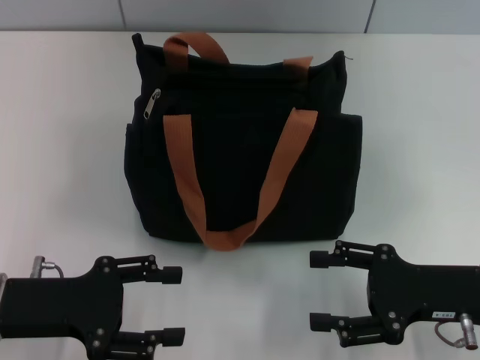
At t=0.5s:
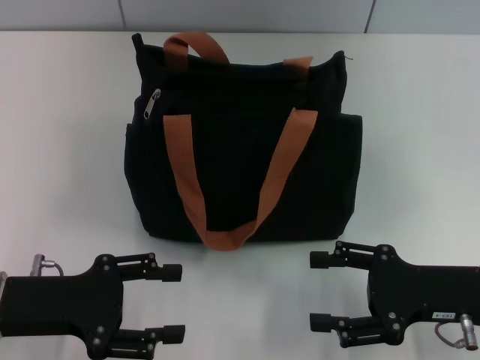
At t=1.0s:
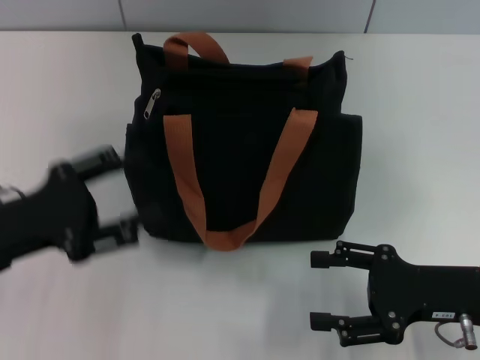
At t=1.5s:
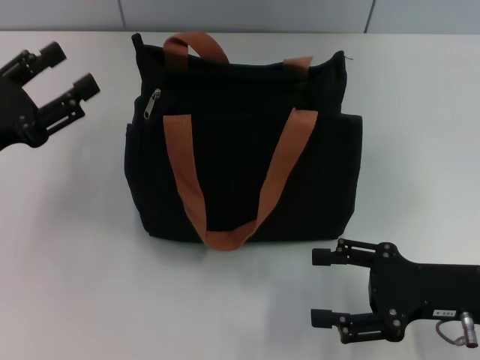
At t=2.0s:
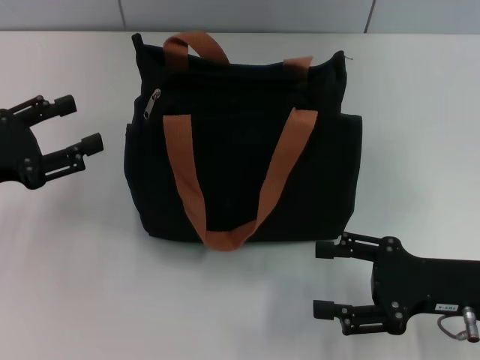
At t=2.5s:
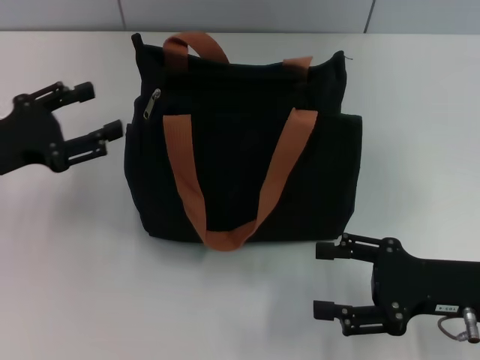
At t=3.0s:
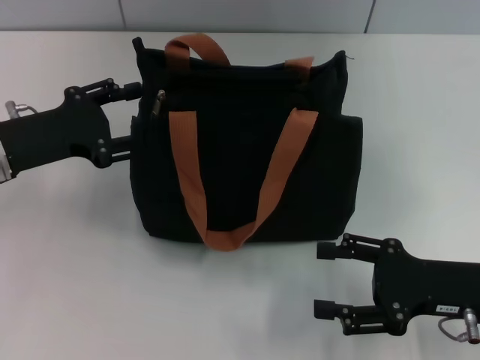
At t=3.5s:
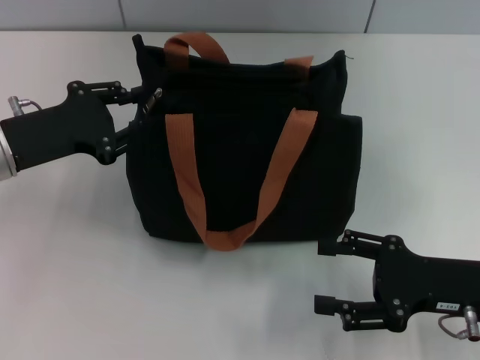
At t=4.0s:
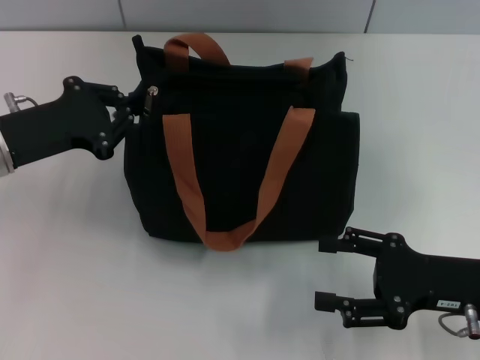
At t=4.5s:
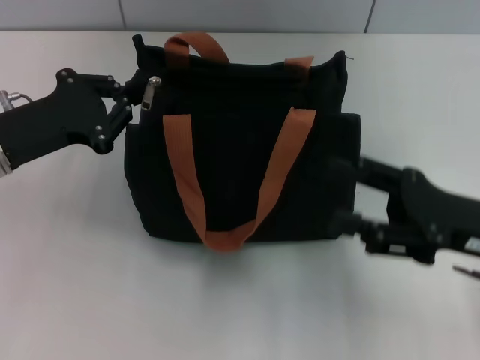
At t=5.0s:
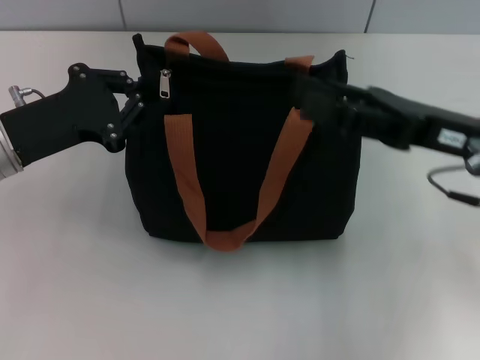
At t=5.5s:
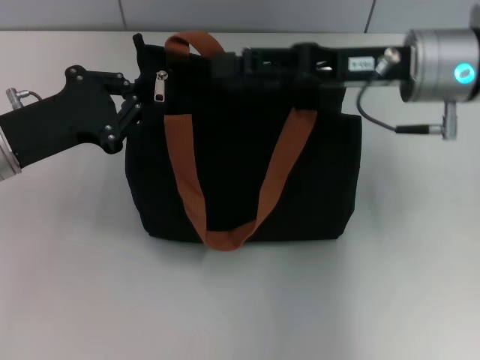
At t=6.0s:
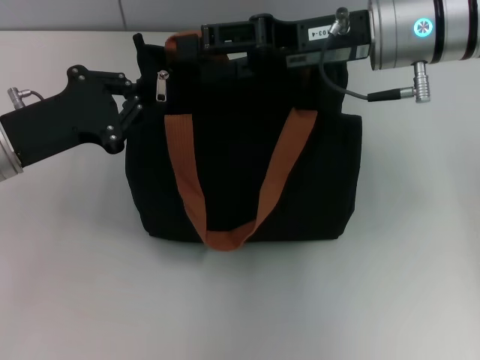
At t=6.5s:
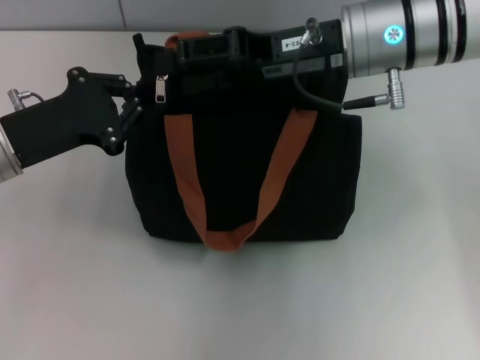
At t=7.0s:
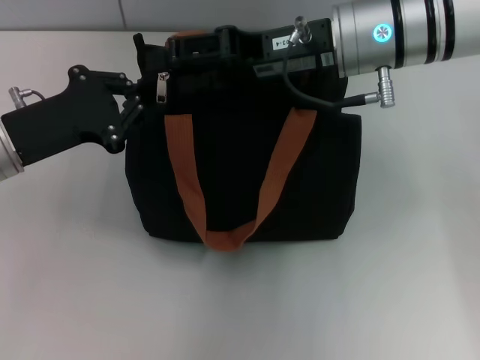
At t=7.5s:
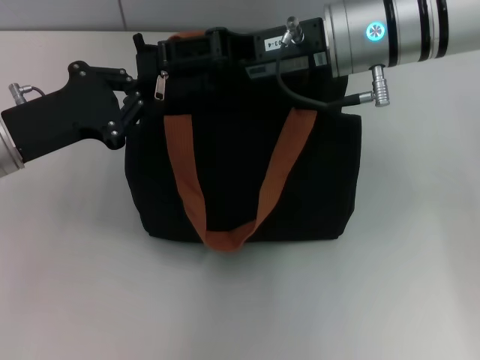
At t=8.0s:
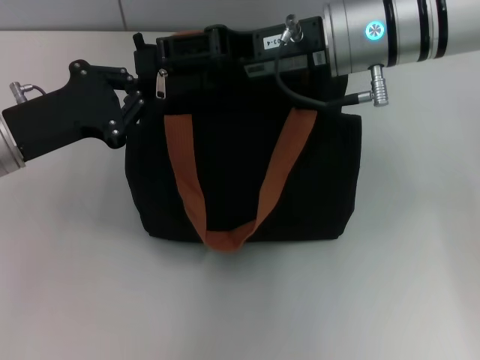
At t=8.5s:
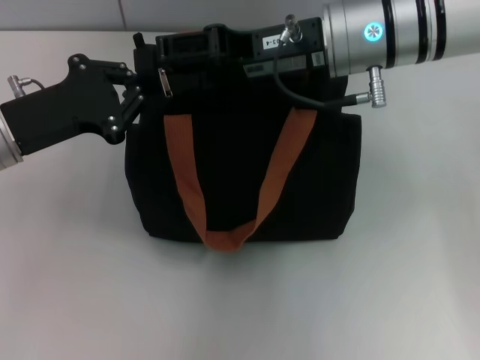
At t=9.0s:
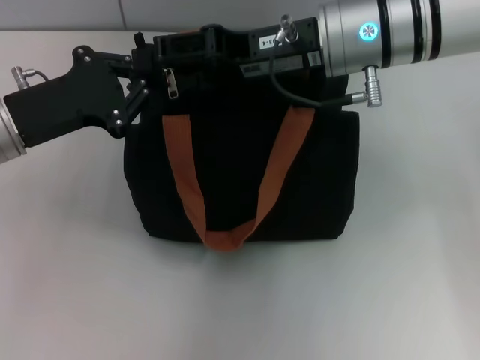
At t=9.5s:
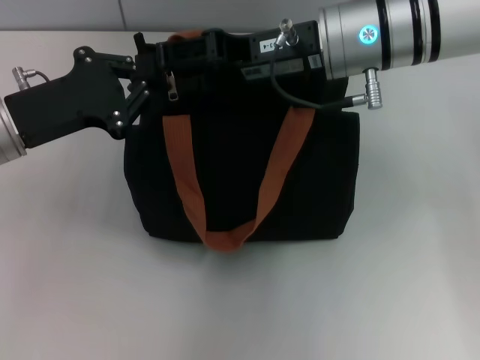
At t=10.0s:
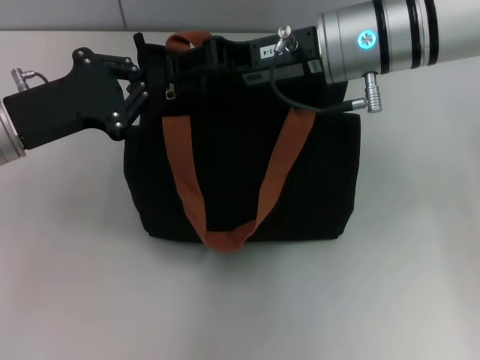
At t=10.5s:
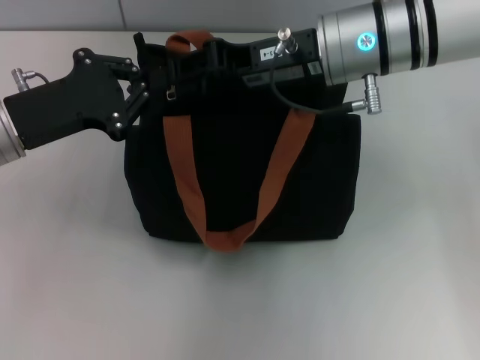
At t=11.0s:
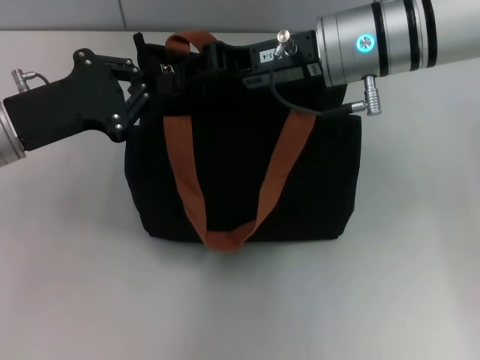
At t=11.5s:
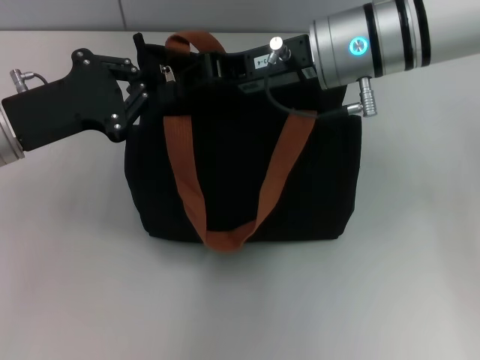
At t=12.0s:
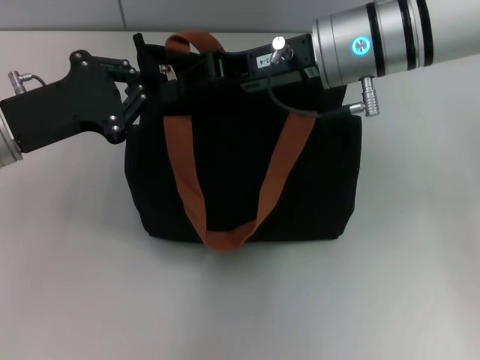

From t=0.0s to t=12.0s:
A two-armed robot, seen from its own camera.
From t=0.0s to t=2.0s: The left gripper moves to the left and forward, about 10 cm.
From t=2.0s to t=4.0s: The left gripper moves to the right, some 5 cm, and closes.
From t=4.0s to t=6.0s: The right gripper heads forward, upward and to the left, covering roughly 25 cm.
From t=6.0s to t=8.0s: The grippers make only small movements.
From t=8.0s to t=10.0s: The right gripper closes.
From t=10.0s to t=12.0s: The right gripper closes up.

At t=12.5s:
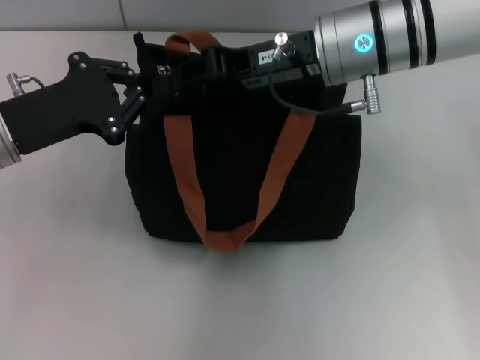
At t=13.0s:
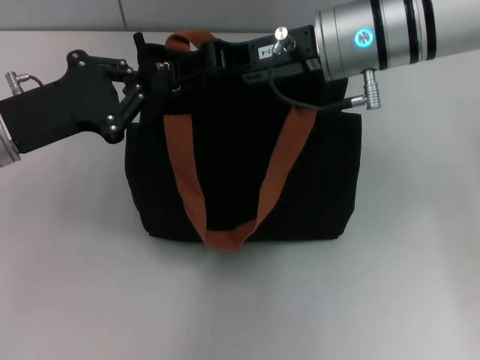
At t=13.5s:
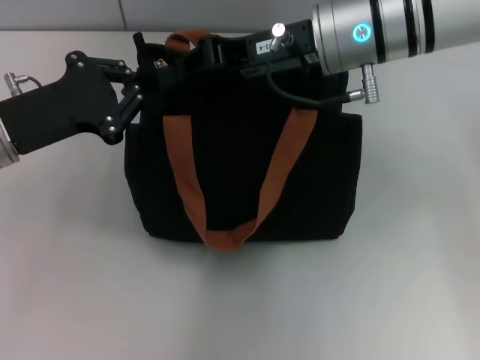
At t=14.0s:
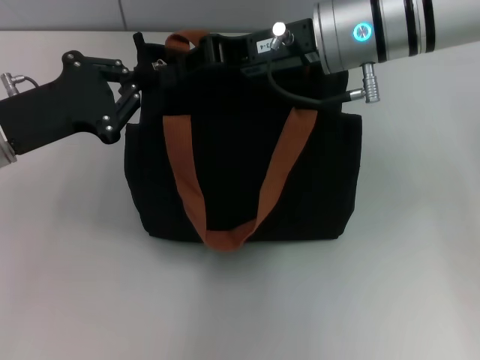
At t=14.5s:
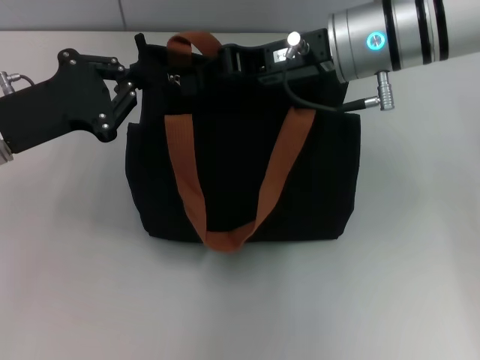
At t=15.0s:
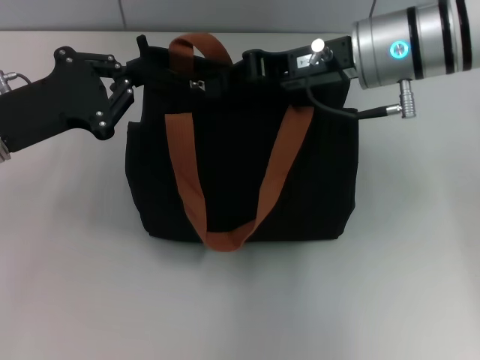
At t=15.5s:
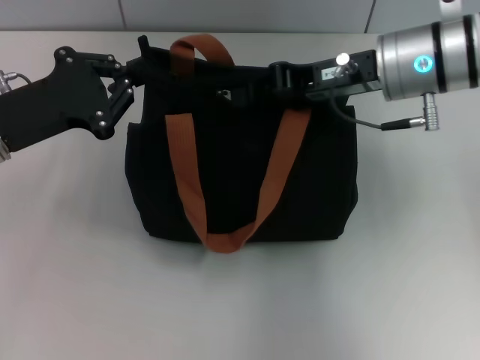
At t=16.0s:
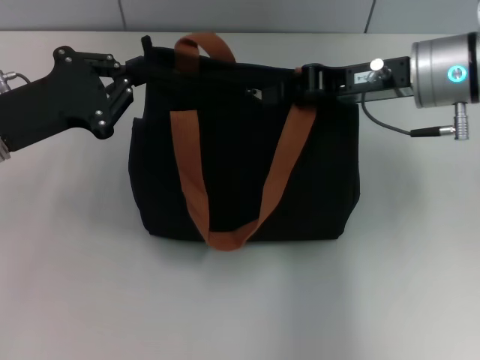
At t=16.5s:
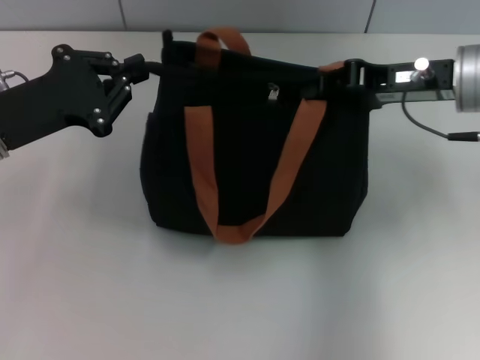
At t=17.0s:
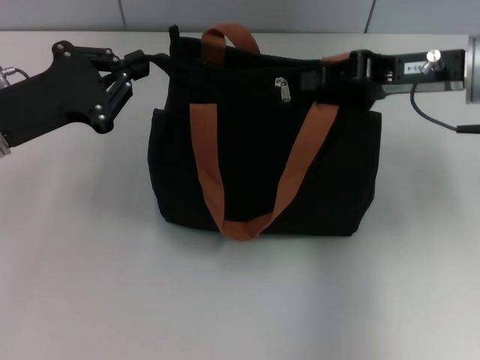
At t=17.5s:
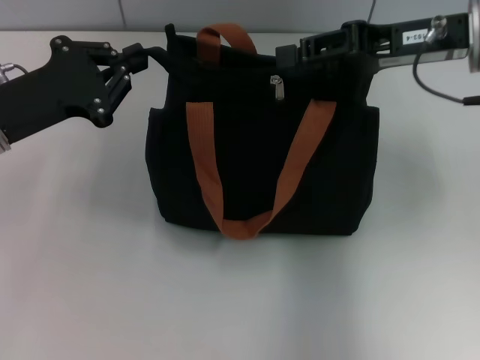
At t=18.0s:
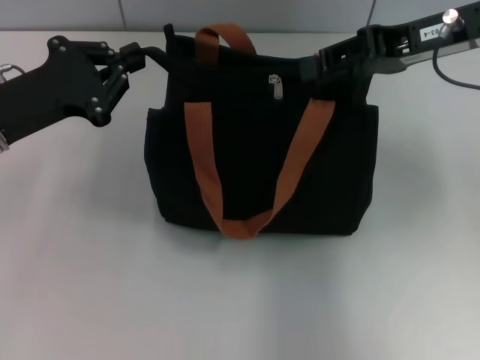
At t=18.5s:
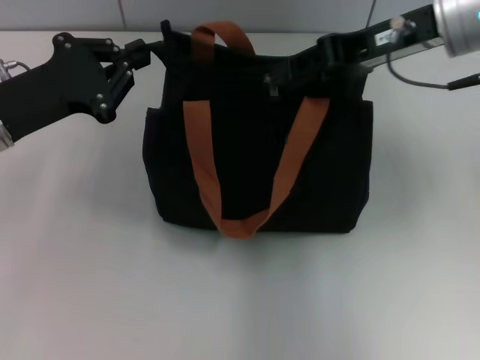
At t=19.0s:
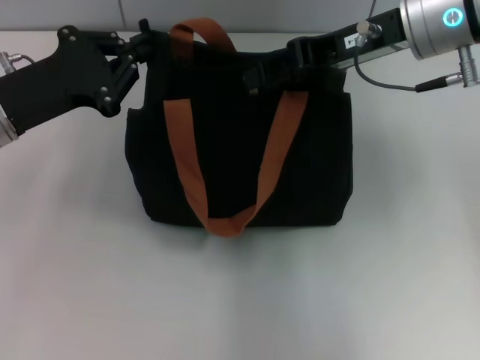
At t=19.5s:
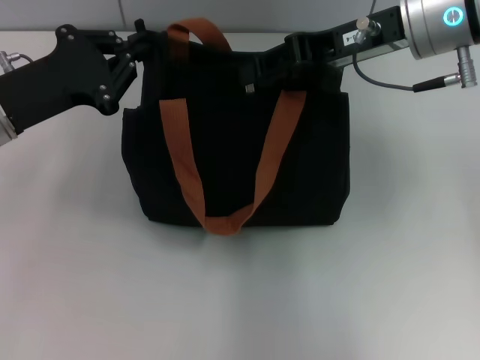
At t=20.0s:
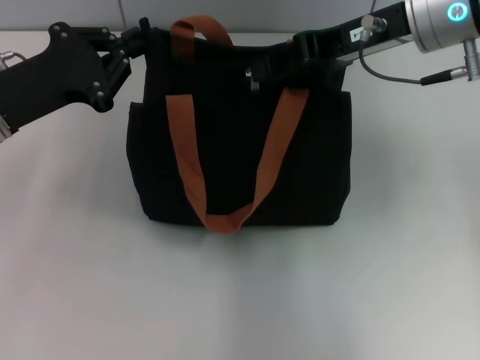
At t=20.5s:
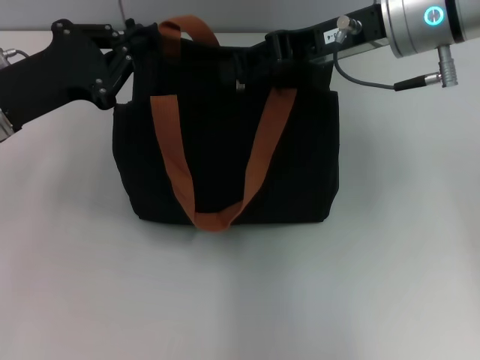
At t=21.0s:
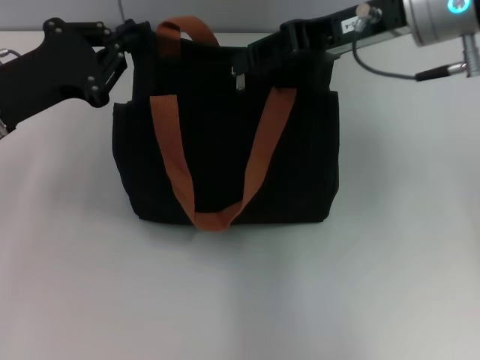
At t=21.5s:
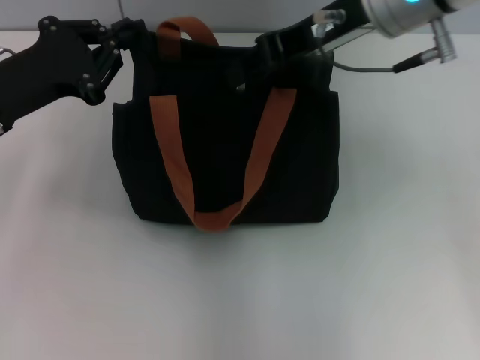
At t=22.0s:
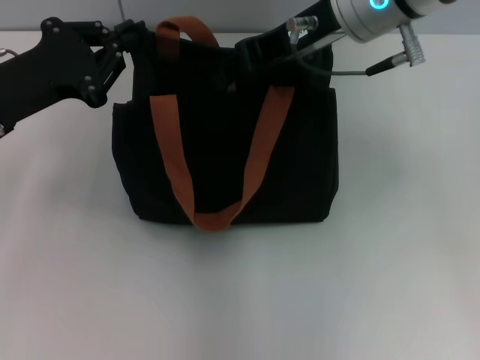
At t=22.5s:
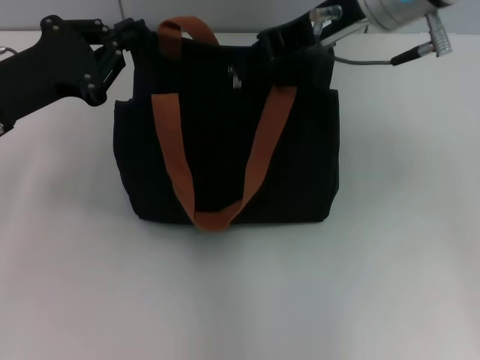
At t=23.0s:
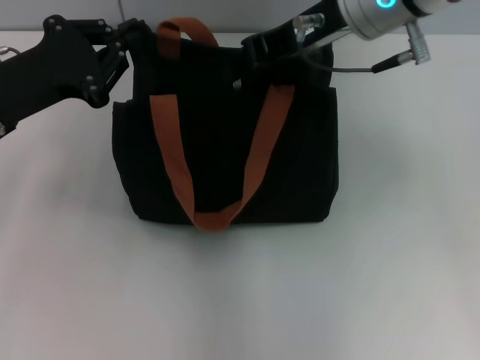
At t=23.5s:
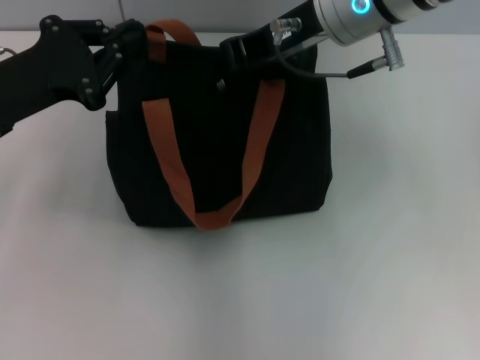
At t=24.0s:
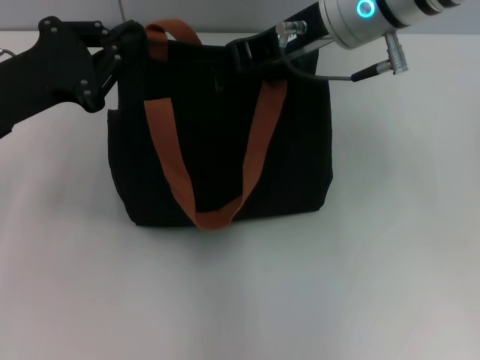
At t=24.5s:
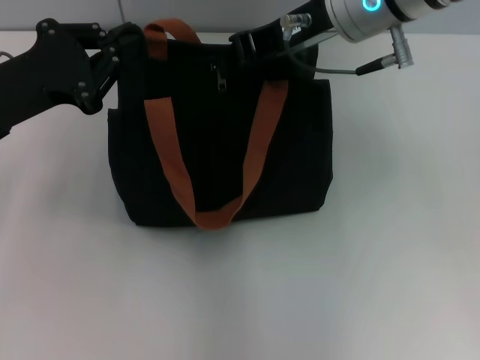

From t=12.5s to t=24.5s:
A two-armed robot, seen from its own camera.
From t=12.5s to t=14.5s: Both grippers stay about where they are.
From t=14.5s to t=16.5s: The right gripper heads to the right, covering some 10 cm.
From t=16.5s to t=18.5s: The right gripper travels upward by roughly 5 cm, and opens.
From t=20.5s to t=22.5s: The grippers move only a little.
From t=22.5s to t=24.5s: The right gripper closes up.

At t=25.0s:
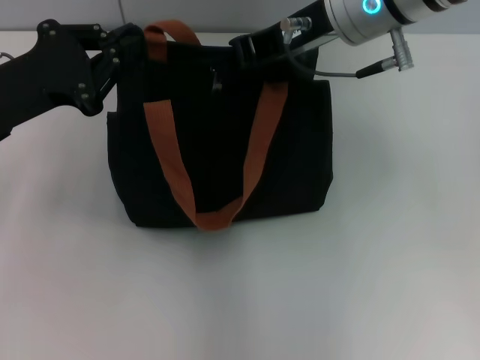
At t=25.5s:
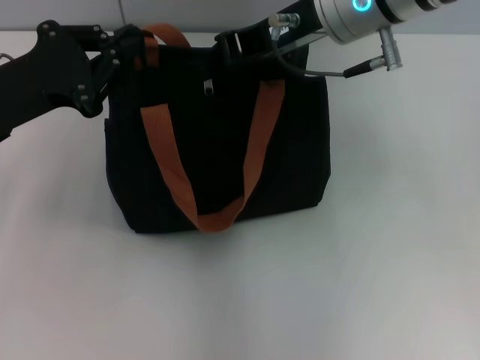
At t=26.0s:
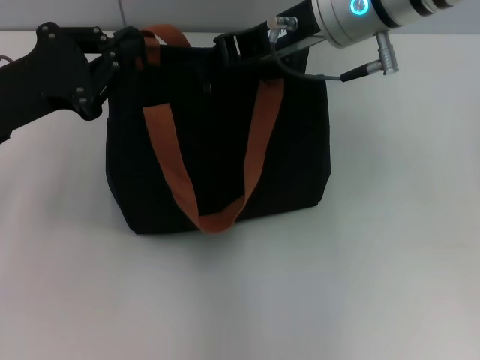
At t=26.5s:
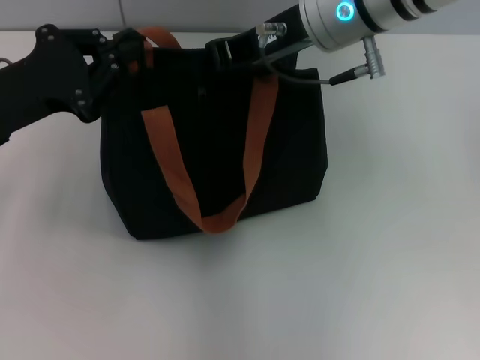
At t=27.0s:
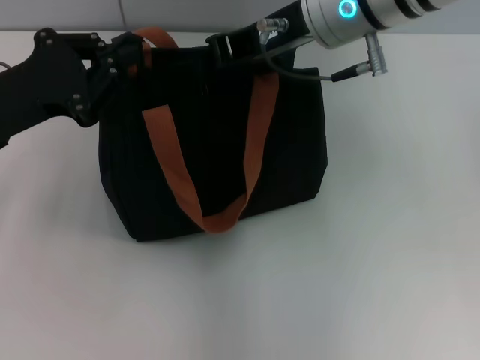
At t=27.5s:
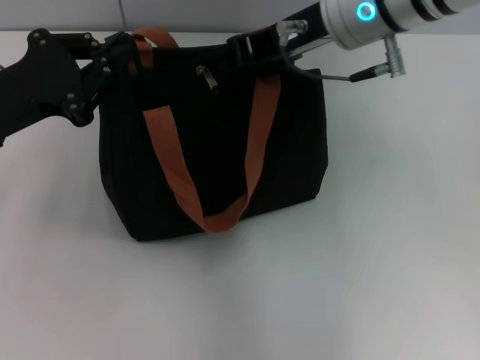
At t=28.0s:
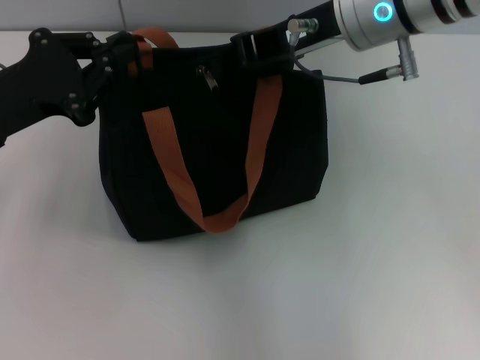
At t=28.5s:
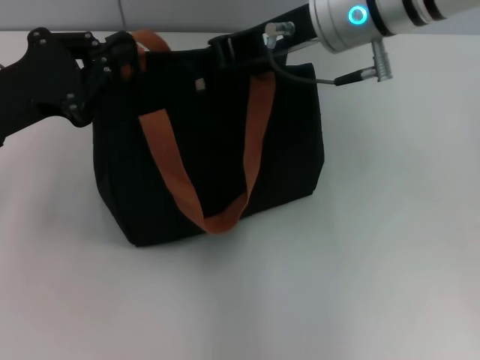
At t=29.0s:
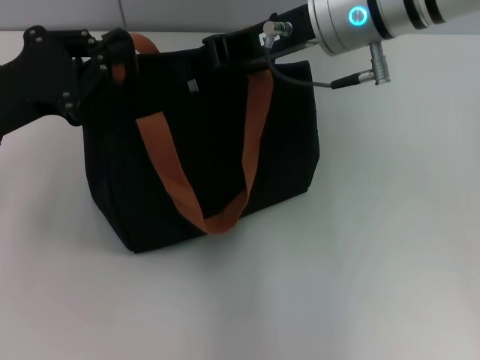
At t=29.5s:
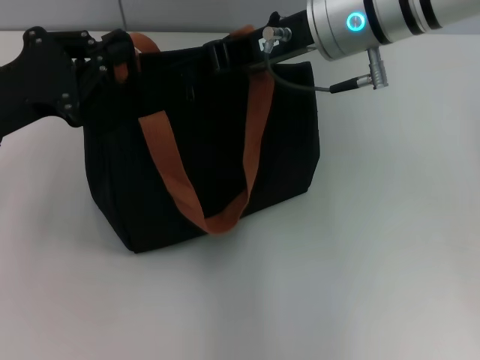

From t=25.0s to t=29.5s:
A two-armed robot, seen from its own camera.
From t=25.0s to t=29.5s: The grippers stay close to where they were, moving slightly.
